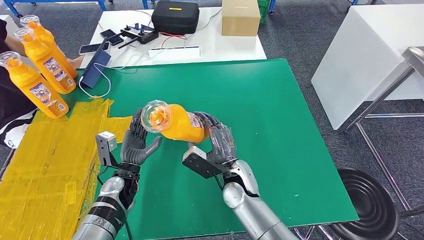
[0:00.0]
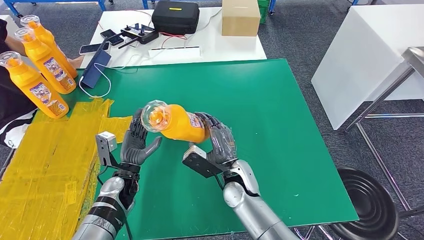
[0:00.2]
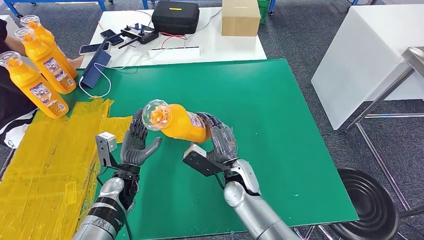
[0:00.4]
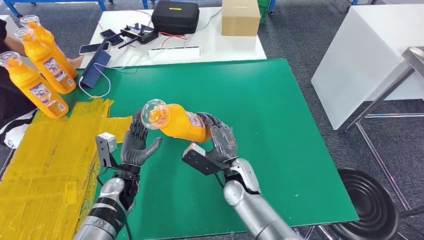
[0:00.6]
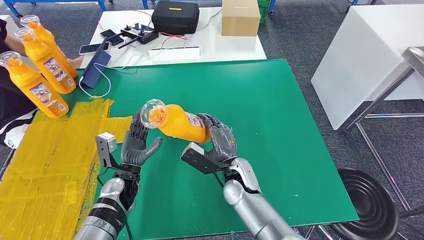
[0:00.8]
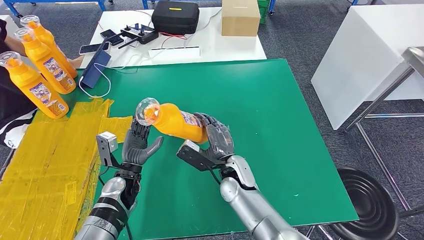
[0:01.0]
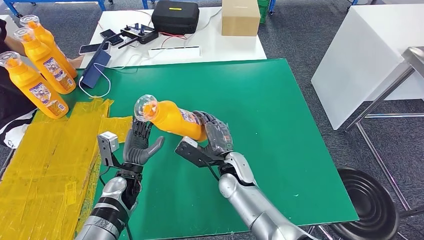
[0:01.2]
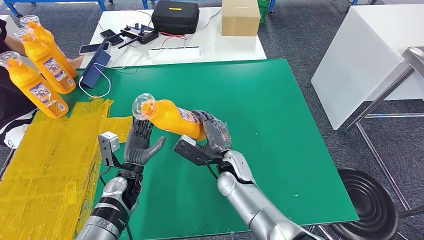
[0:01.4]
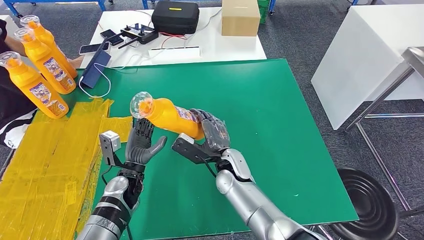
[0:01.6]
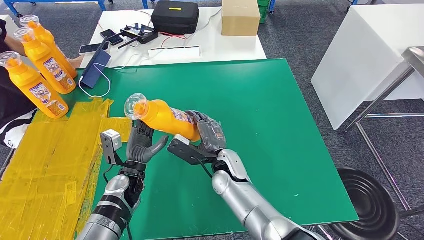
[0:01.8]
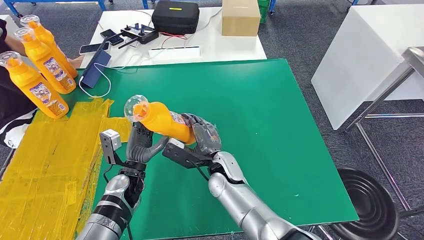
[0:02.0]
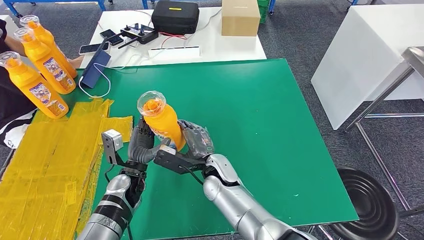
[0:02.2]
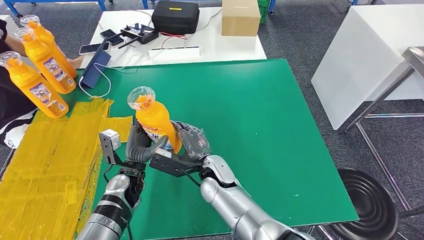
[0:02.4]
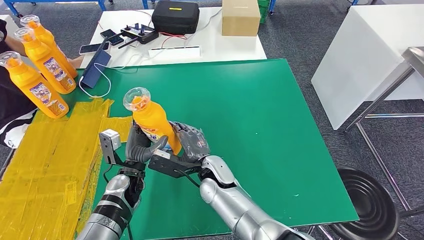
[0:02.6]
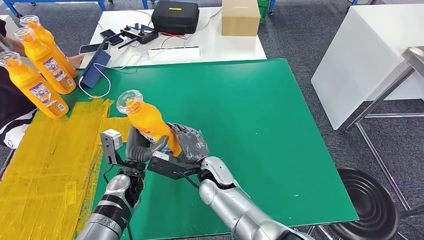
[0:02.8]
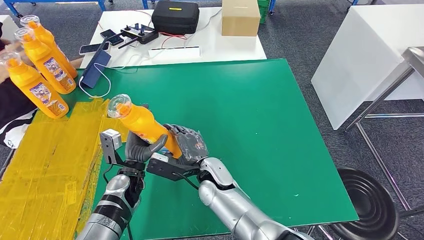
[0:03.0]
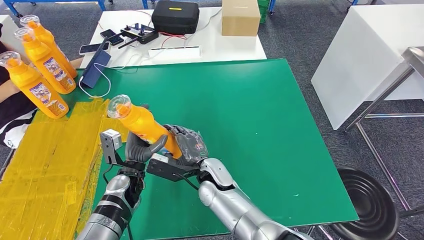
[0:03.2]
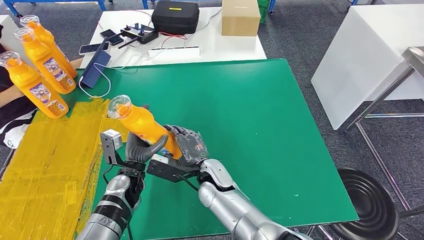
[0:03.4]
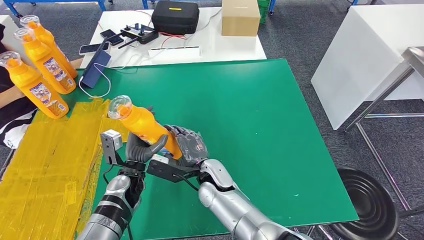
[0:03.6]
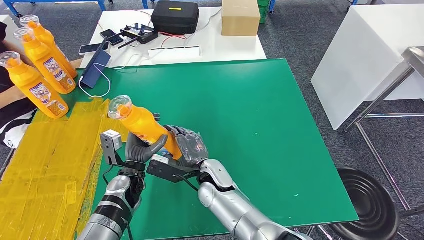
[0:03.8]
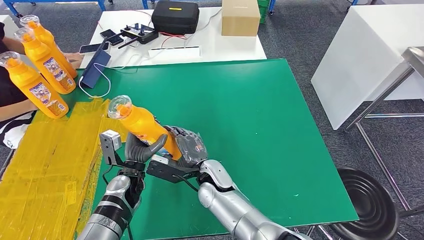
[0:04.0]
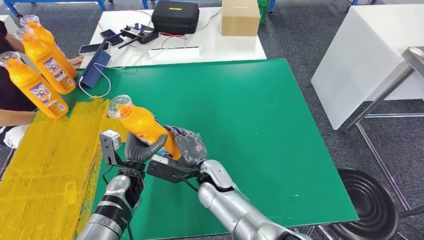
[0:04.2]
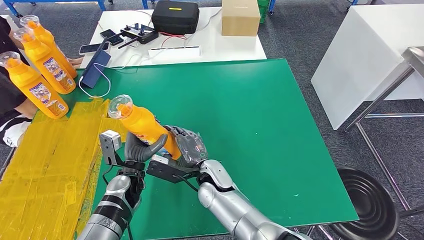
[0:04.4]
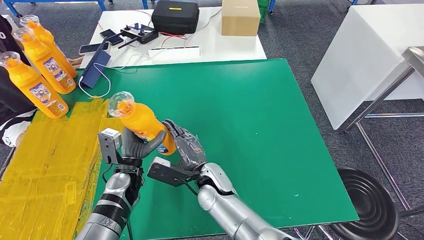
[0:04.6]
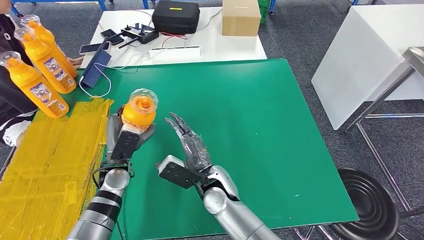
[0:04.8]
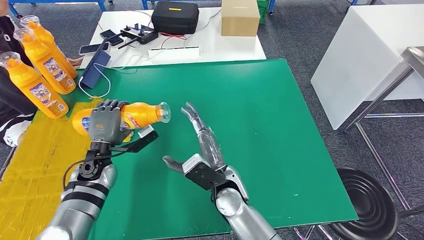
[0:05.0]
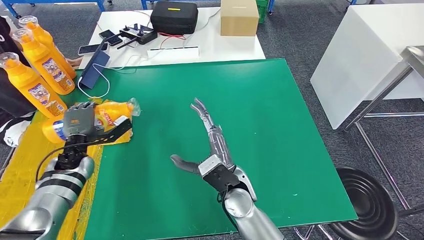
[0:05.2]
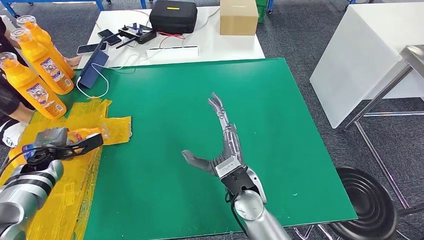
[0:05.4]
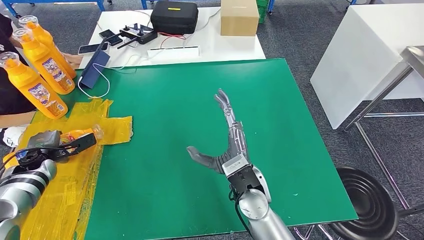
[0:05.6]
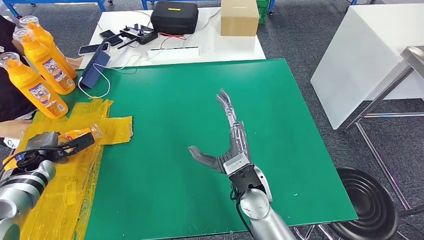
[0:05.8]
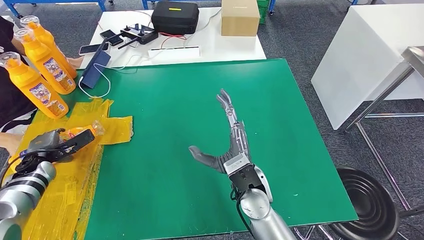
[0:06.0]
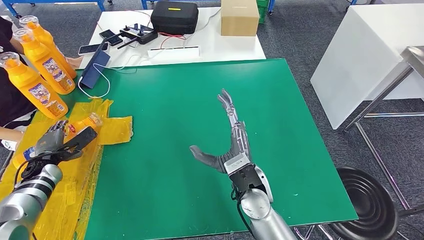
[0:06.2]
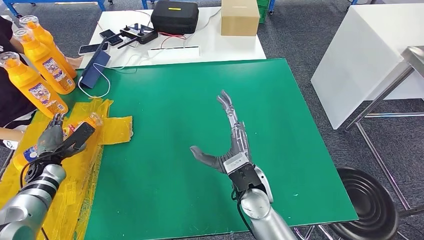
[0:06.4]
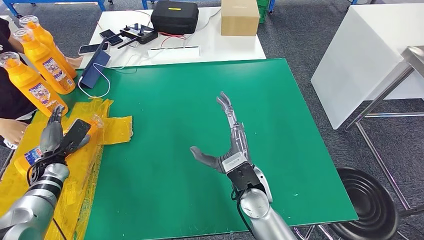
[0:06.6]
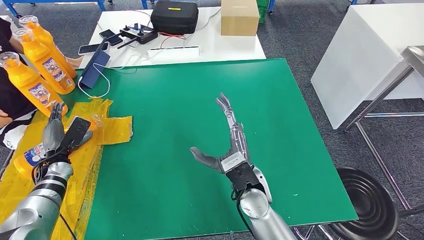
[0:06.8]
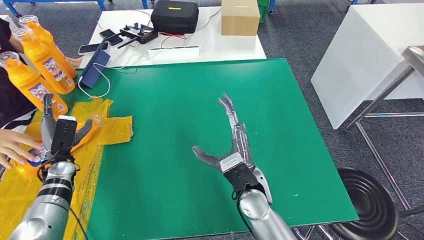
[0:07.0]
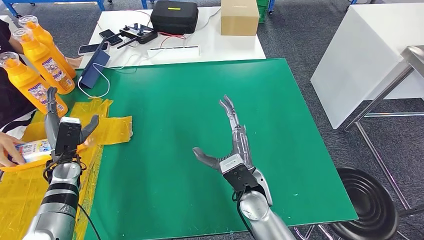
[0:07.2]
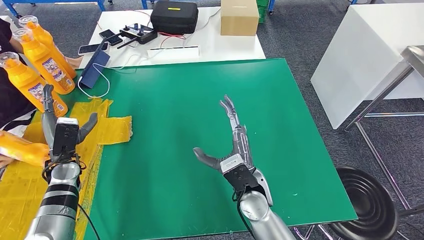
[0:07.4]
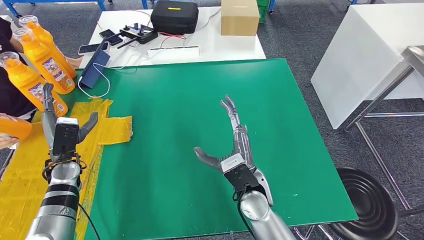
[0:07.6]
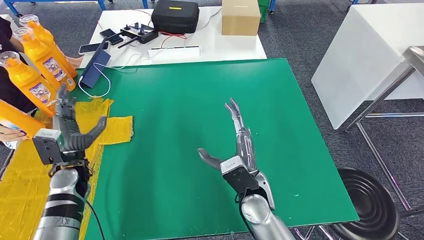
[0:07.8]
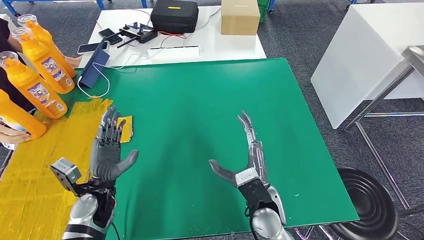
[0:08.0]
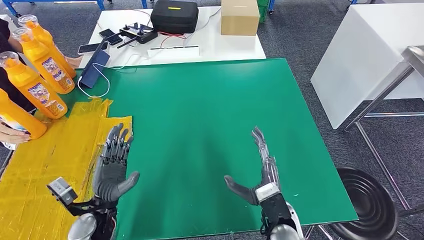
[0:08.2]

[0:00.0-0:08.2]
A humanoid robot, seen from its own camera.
Step, 0:00.0 to 0:08.0: Flip the fast-moving consumer goods bottle to the front side.
0:00.0 to 0:01.6: The hands make only small movements.
0:01.6 to 0:03.2: The right hand shifts some 5 cm to the left.
0:03.2 to 0:05.0: The left hand travels to the left and upward by some 10 cm; the right hand changes place by some 5 cm.
0:05.0 to 0:06.6: The right hand heads to the right, covering roughly 5 cm. Meanwhile the left hand is displaced to the left by about 15 cm.
0:06.6 to 0:08.2: The right hand shifts about 10 cm to the right and backward. Meanwhile the left hand is displaced to the right and backward by roughly 25 cm.

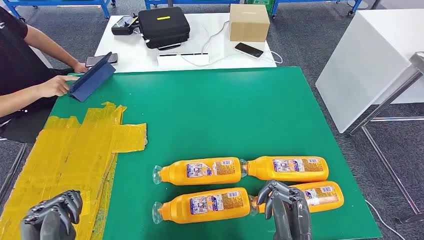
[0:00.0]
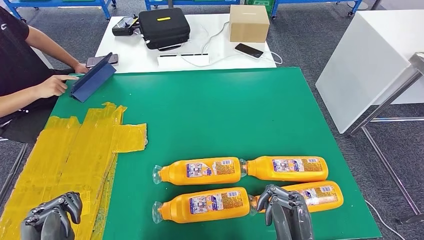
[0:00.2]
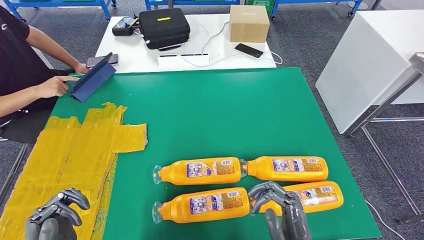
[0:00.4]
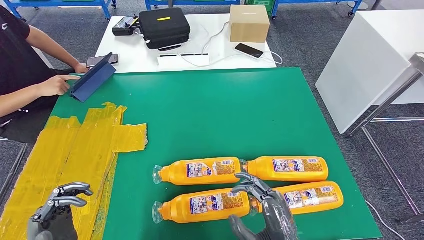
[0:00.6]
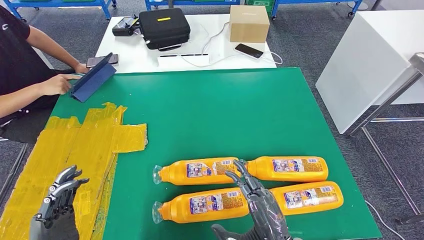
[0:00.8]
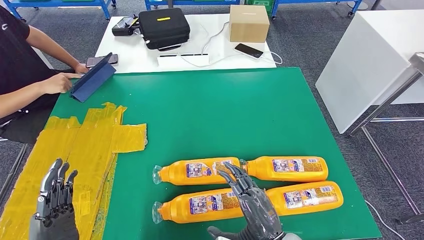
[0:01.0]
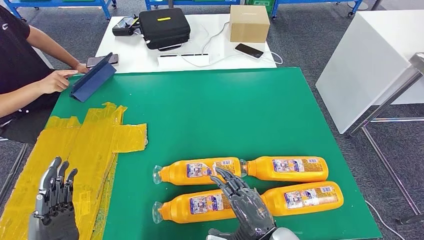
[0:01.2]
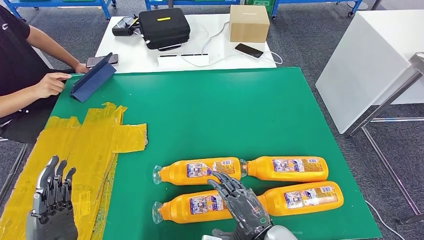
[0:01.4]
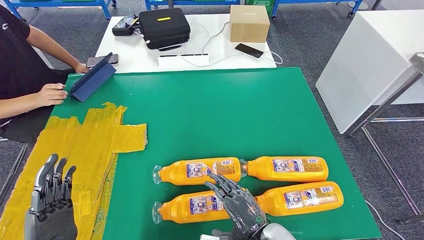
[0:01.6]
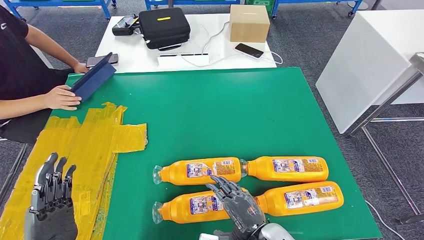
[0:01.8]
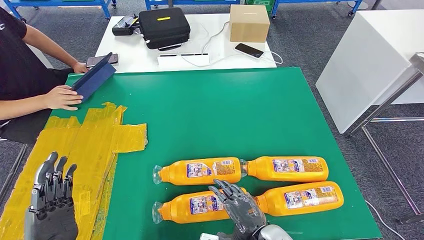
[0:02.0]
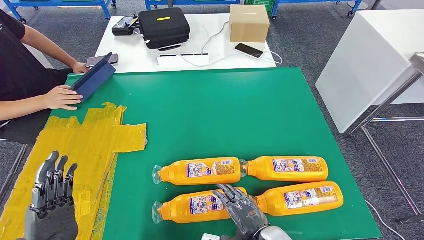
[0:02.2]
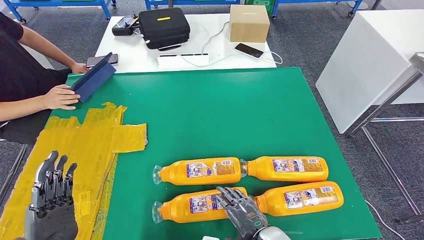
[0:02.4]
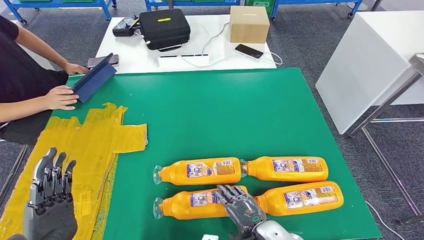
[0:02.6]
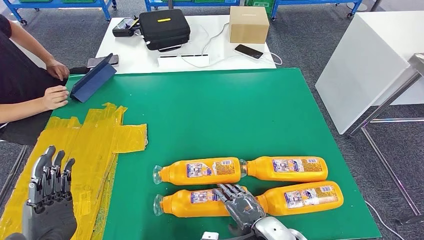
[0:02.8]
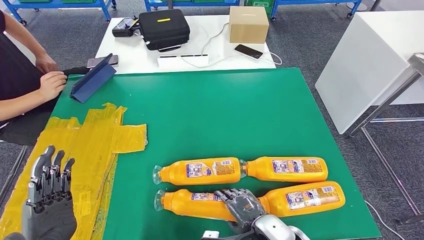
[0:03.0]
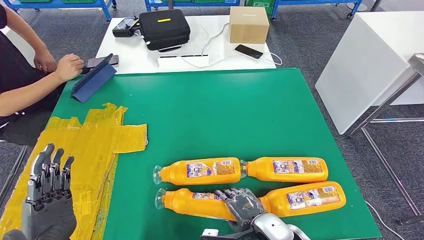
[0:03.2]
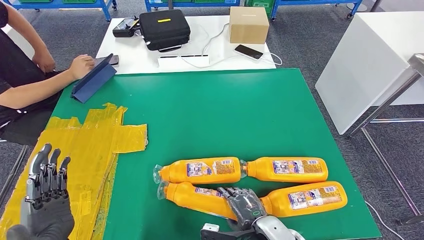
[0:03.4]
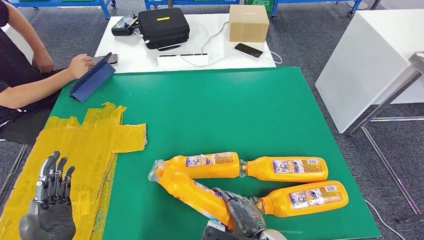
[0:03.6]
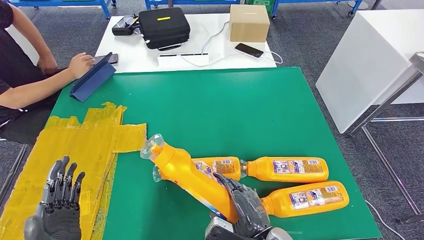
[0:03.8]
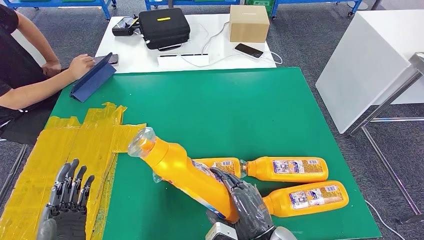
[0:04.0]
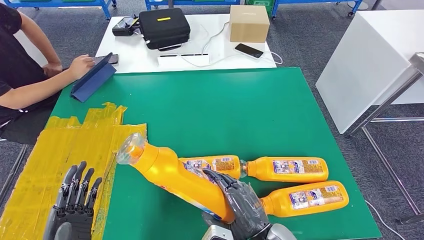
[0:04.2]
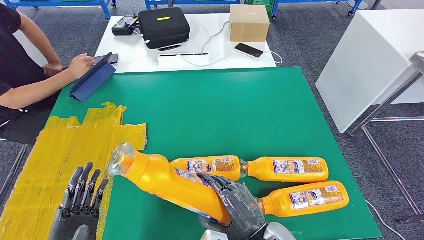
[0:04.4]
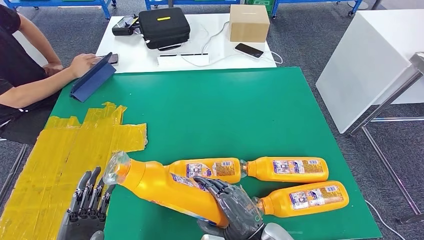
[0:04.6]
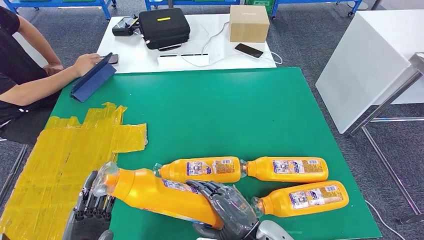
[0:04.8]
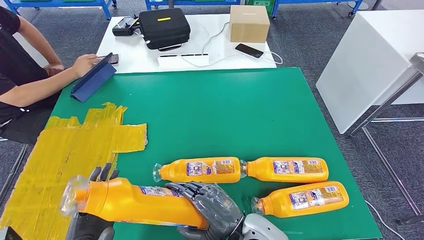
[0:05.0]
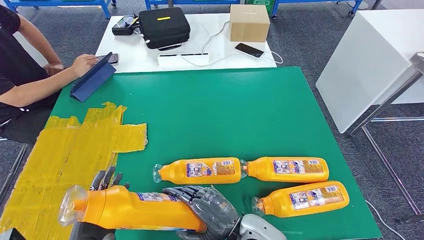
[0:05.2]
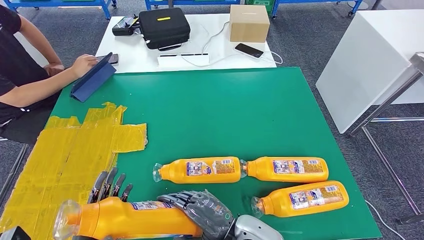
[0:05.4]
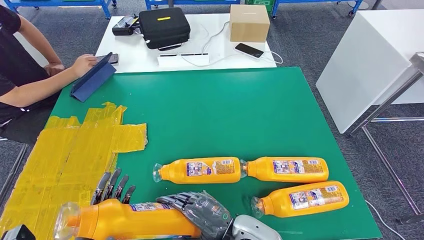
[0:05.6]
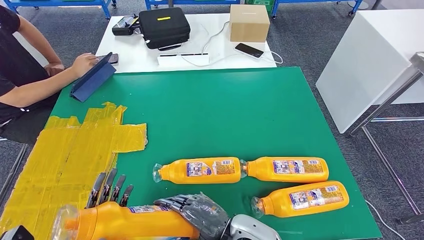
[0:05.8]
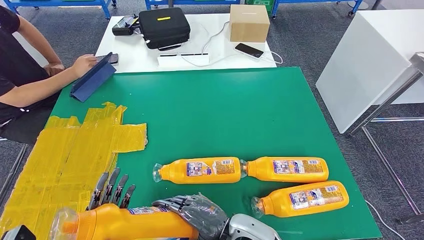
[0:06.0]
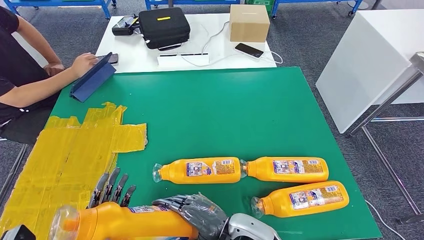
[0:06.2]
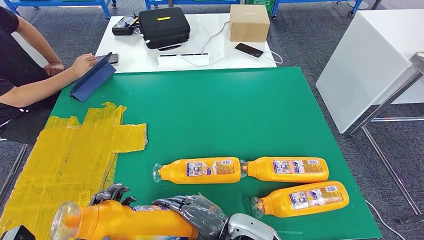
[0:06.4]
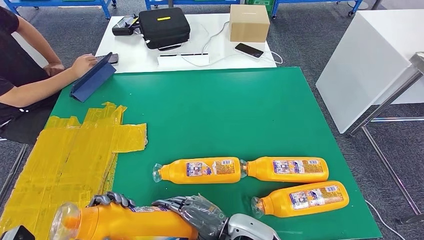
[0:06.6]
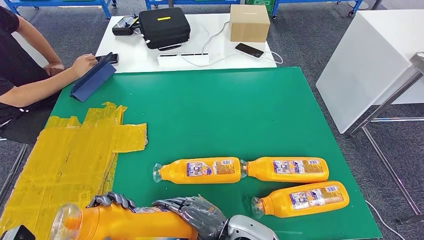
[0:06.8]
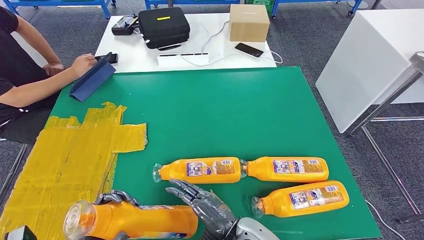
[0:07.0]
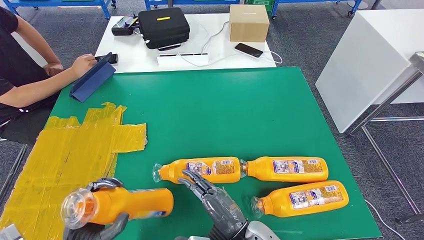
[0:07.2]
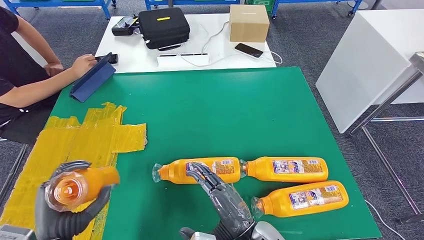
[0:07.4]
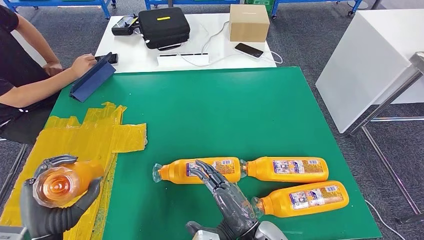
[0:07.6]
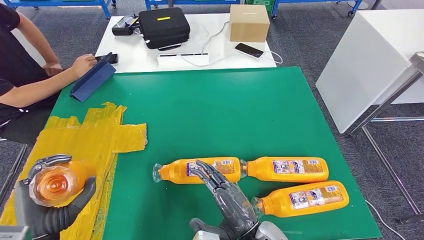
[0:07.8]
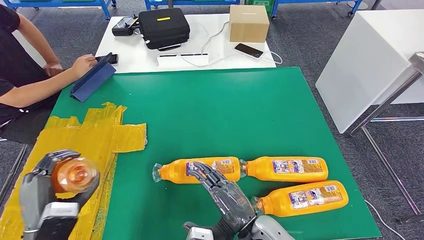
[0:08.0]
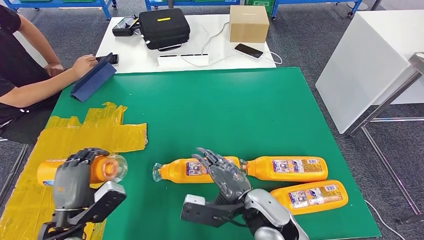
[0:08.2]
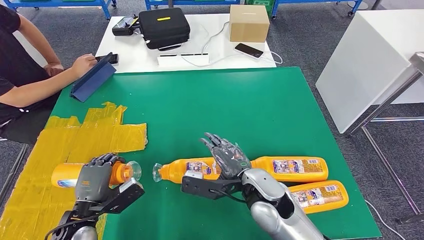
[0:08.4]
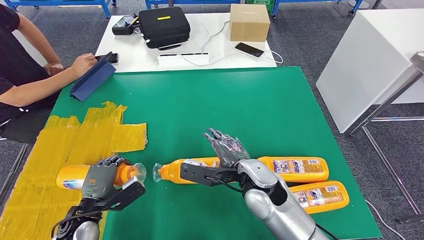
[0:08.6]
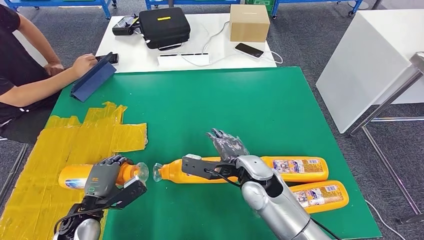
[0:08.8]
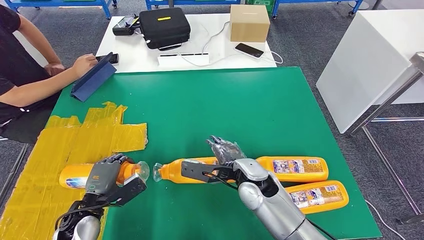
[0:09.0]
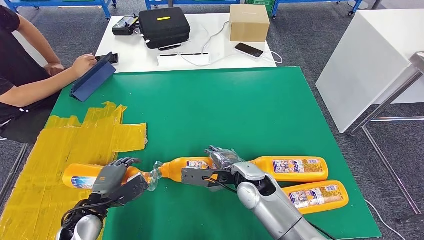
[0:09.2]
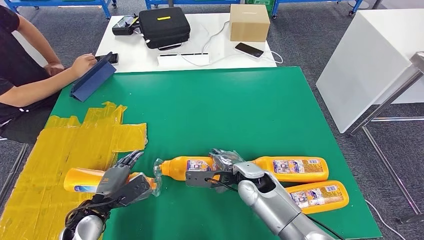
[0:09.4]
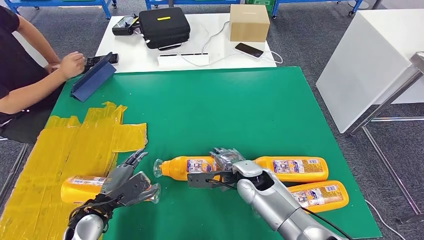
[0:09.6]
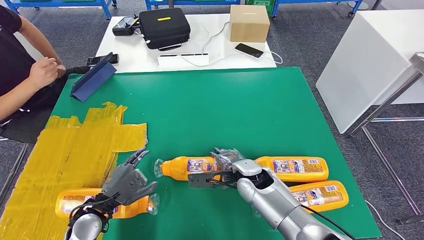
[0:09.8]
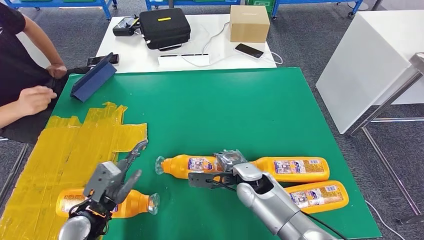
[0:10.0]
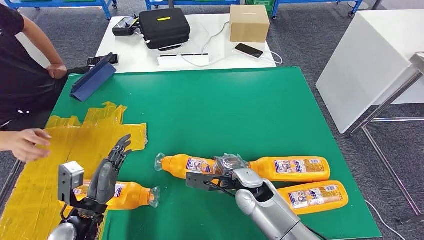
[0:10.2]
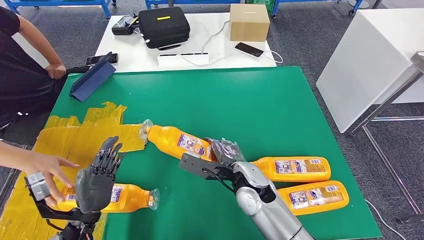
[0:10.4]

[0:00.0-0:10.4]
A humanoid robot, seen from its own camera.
Step, 0:00.0 to 0:04.6: Take the fast-moving consumer goods bottle from the table.
0:01.4 to 0:03.0: The right hand shifts approximately 5 cm downward.
0:04.4 to 0:06.0: The right hand moves roughly 5 cm.
0:06.0 to 0:07.4: The left hand is displaced upward by about 5 cm.
0:07.4 to 0:09.0: The right hand moves forward, about 15 cm. Meanwhile the left hand is displaced forward and downward by some 15 cm.
0:09.0 to 0:10.4: The left hand moves about 5 cm.
